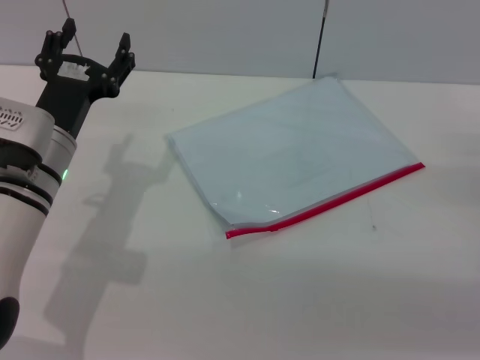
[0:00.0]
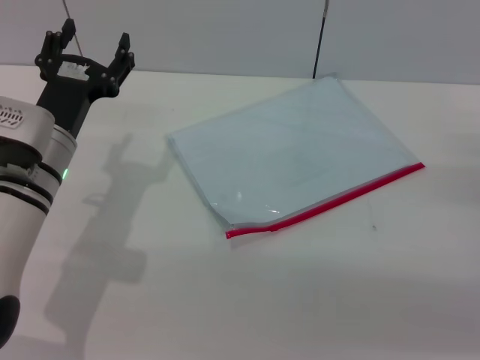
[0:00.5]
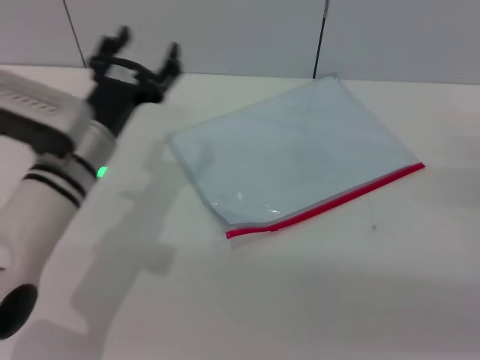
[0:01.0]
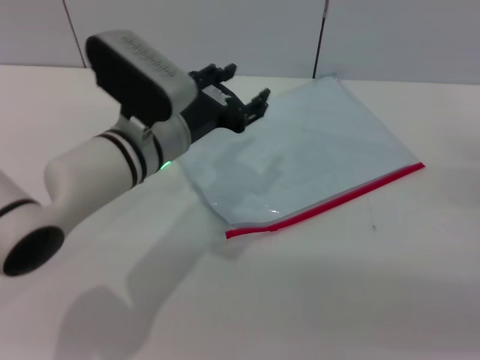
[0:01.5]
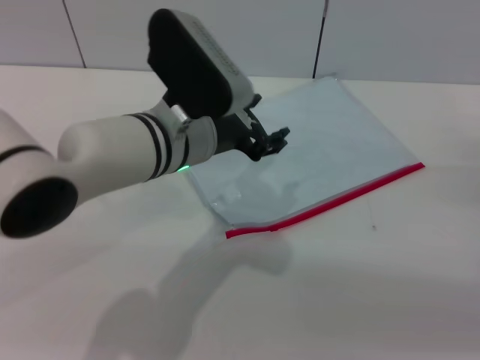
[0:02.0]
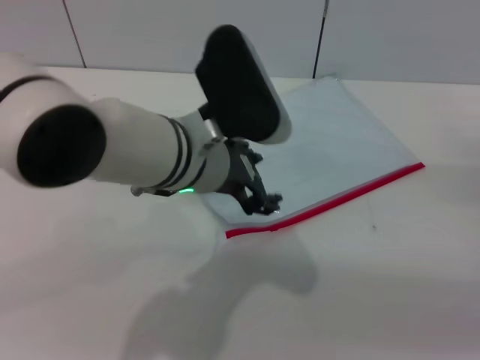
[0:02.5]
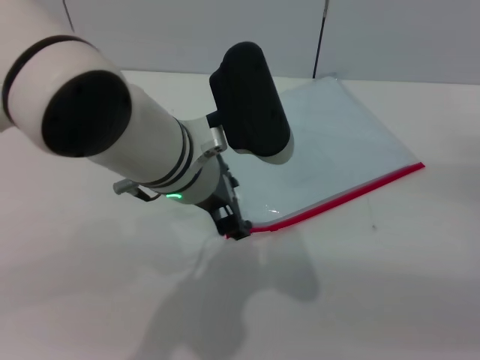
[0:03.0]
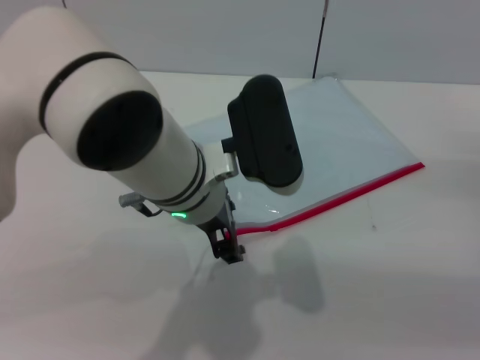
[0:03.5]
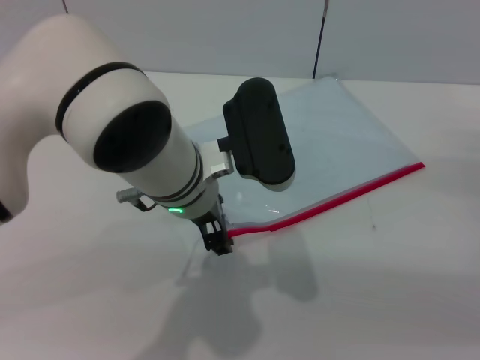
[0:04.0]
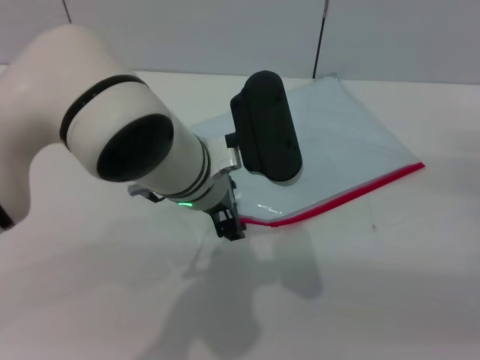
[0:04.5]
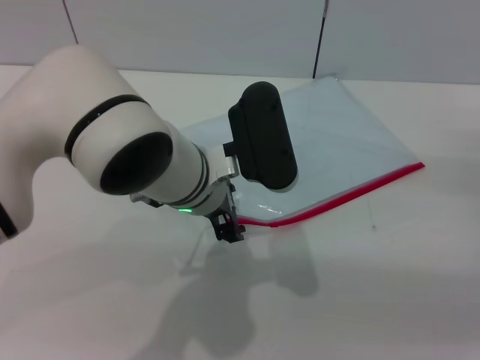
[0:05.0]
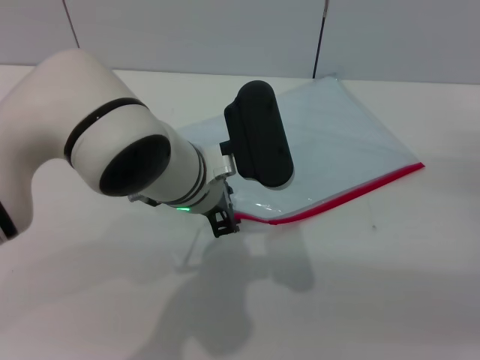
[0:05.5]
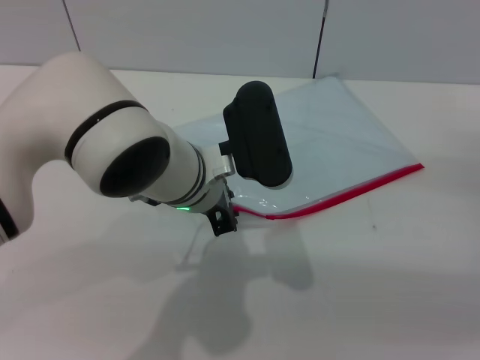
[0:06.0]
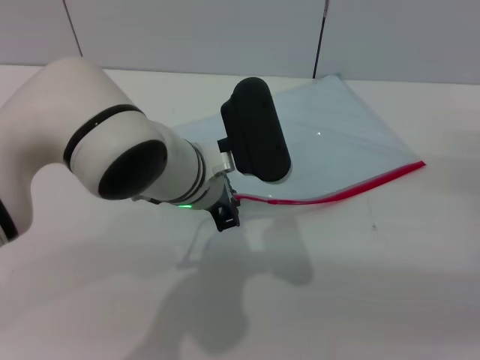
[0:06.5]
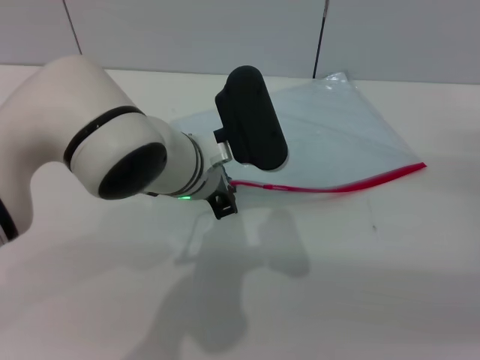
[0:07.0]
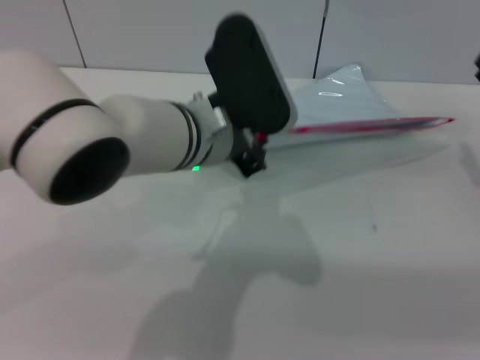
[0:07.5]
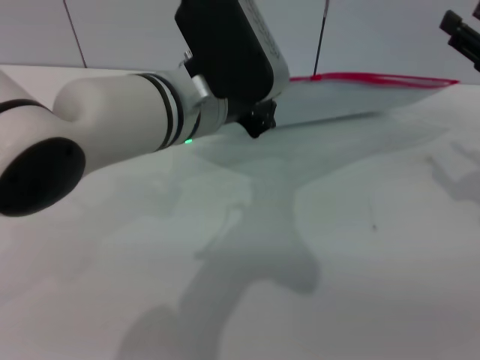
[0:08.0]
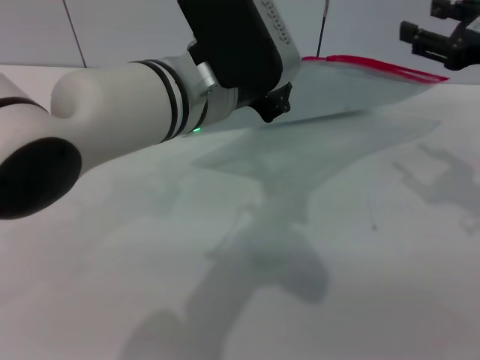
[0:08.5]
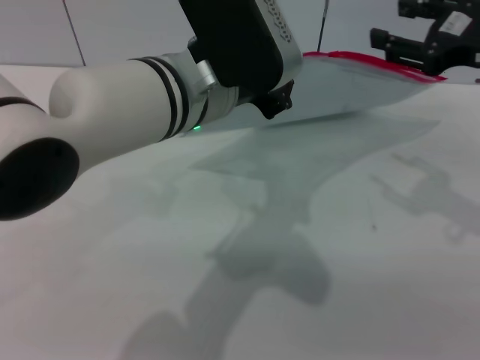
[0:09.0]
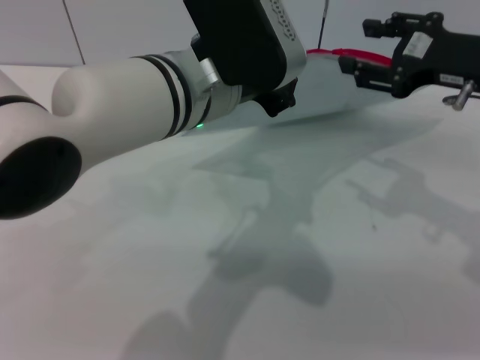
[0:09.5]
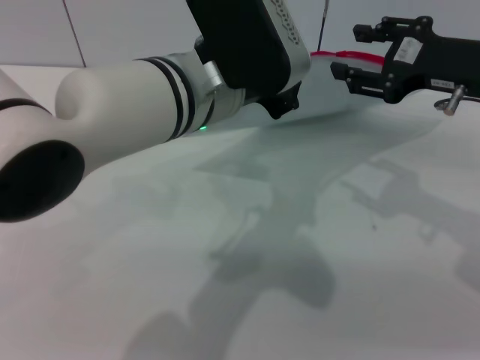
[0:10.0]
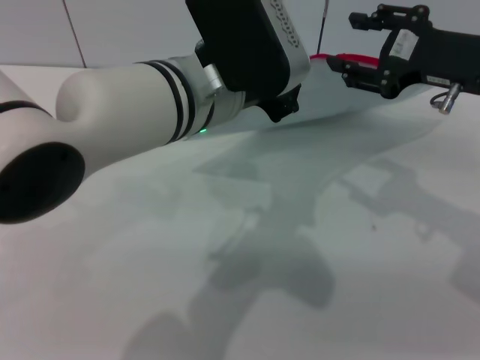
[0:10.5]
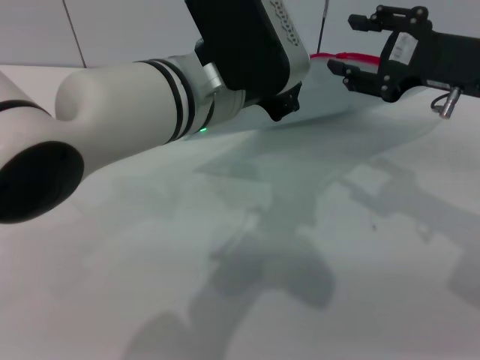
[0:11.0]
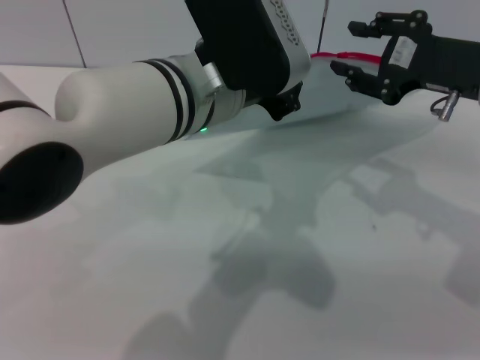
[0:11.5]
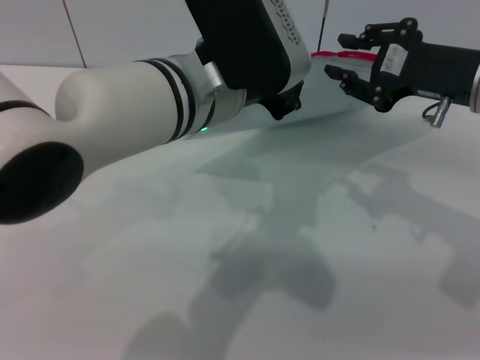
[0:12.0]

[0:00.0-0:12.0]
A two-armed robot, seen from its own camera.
Step, 0:00.0 to 0:08.0: Pick up the transparent plastic bag with the left gripper.
0:00.0 to 0:02.0: The left gripper moves to the right and upward, approximately 15 cm.
0:04.0 to 0:06.0: The left gripper closes.
0:06.0 to 0:08.0: The grippers both shift upward by roughly 10 cm. The left gripper closes up.
0:08.0 to 0:10.0: The right gripper is displaced to the left by roughly 10 cm.
0:10.0 to 0:12.0: The grippers move only a little.

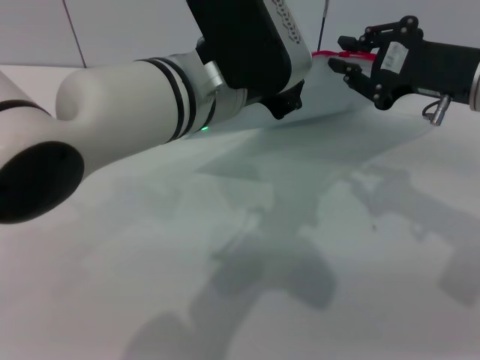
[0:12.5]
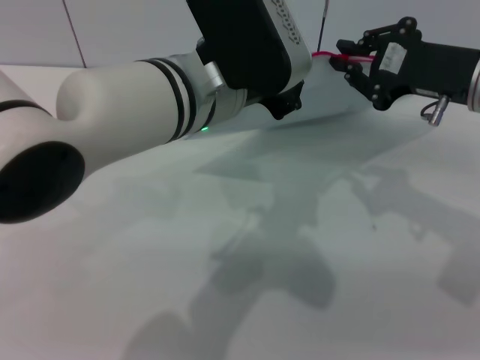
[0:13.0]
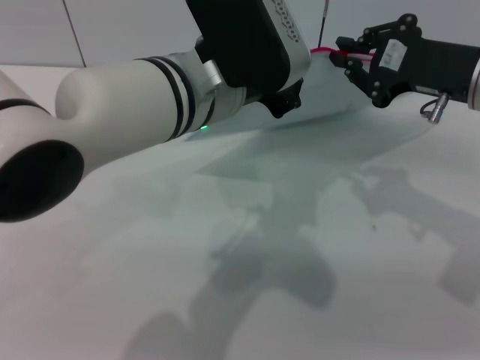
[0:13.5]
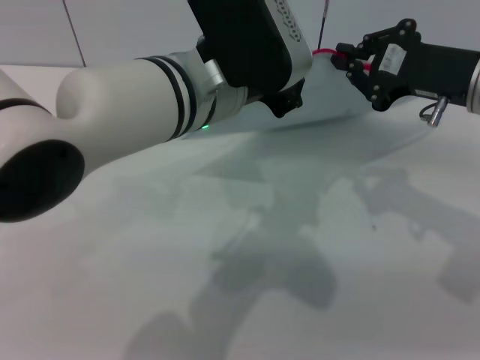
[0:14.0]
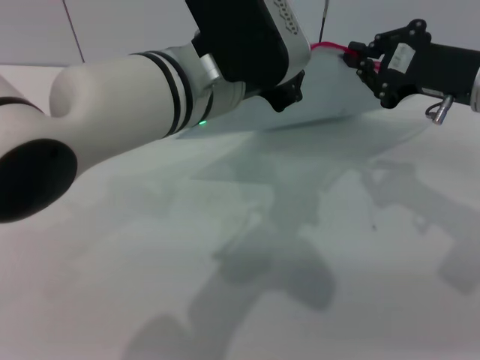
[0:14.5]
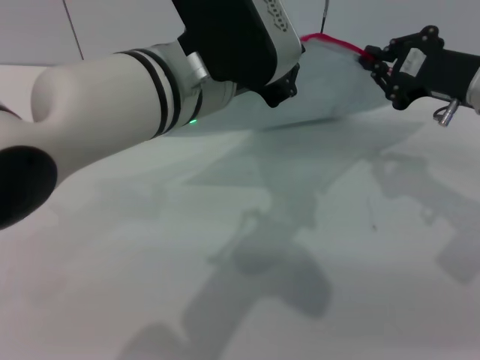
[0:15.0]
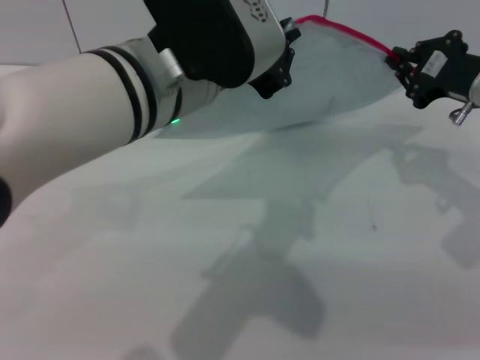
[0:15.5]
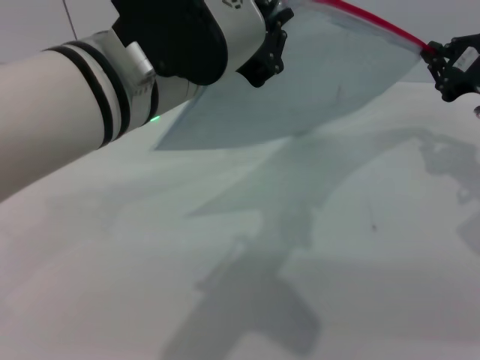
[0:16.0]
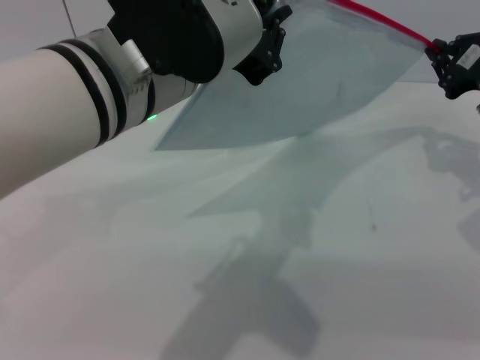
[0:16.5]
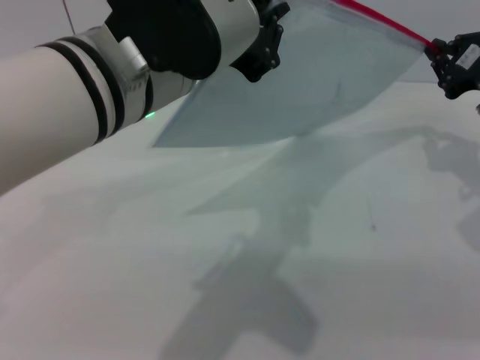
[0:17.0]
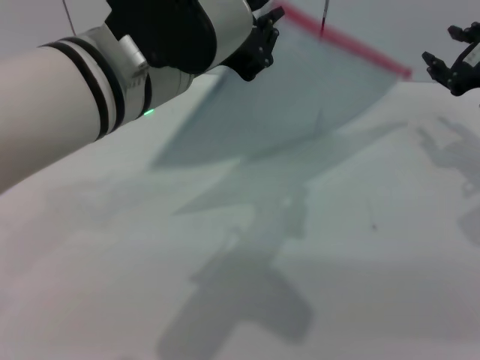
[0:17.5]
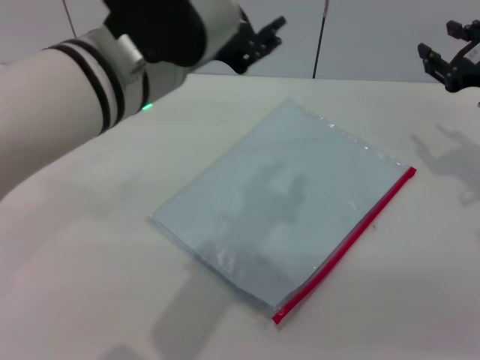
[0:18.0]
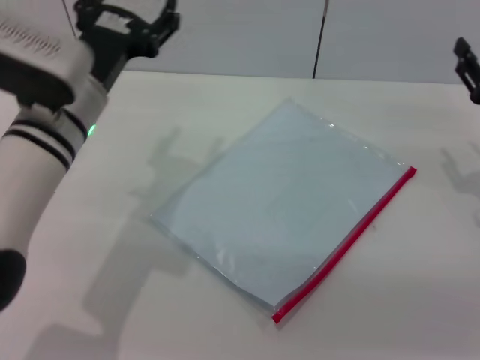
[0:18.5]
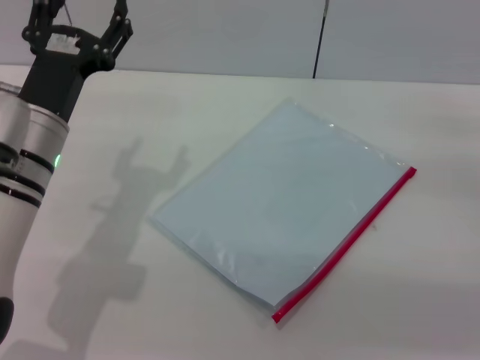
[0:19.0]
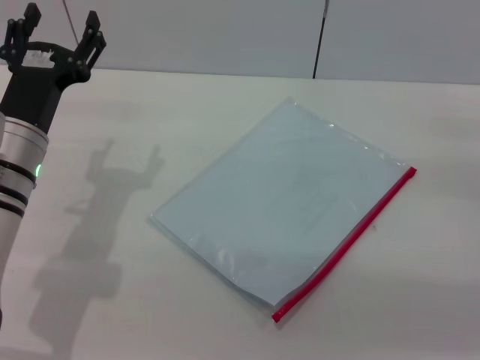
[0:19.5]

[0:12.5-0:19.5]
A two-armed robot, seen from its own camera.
Step, 0:12.5 to 0:17.0: Pulling up the zipper on the transparent plastic bag with the right gripper to close it.
Step, 0:17.5 to 0:18.0: Place the transparent plastic bag.
0:12.5 to 0:14.5: The right gripper closes up.
0:14.5 to 0:16.0: The left gripper moves about 5 cm. Meanwhile the right gripper goes approximately 5 cm to the right.
0:16.0 to 0:17.5: The right gripper opens.
0:17.5 to 0:19.5: The left gripper goes some 20 cm downward and to the left, and opens up, while the right gripper is displaced backward and downward by about 10 cm.
